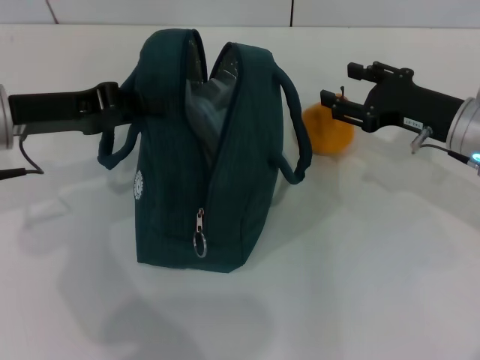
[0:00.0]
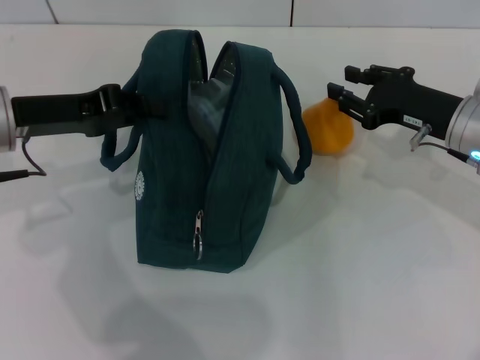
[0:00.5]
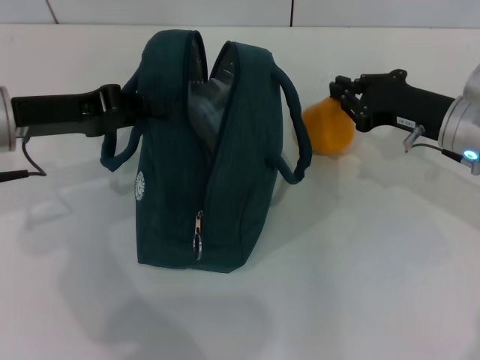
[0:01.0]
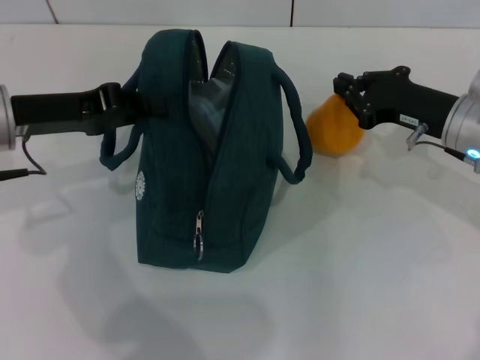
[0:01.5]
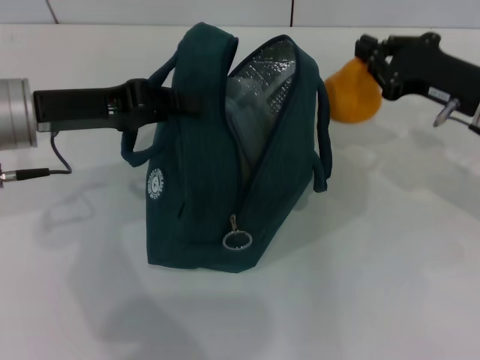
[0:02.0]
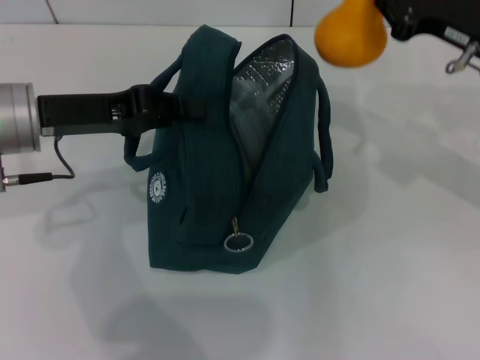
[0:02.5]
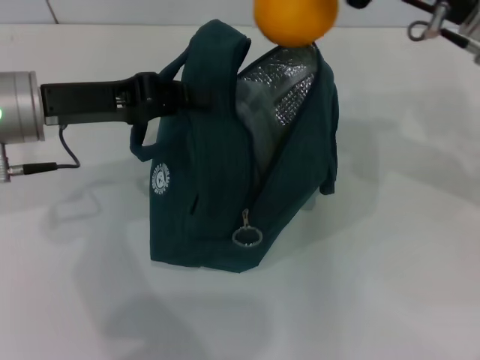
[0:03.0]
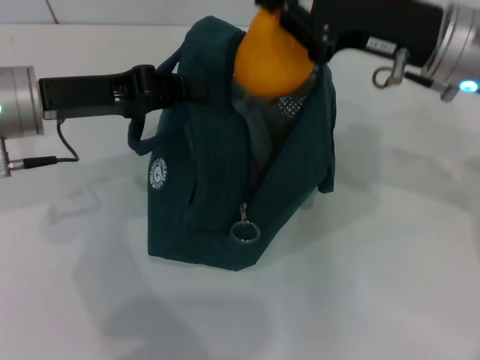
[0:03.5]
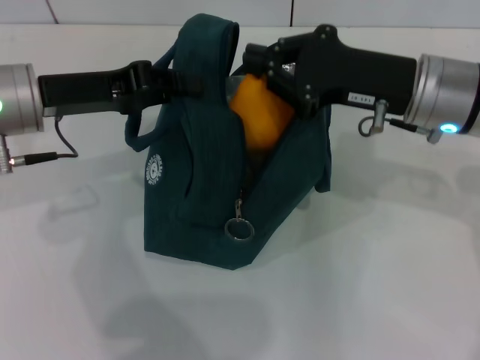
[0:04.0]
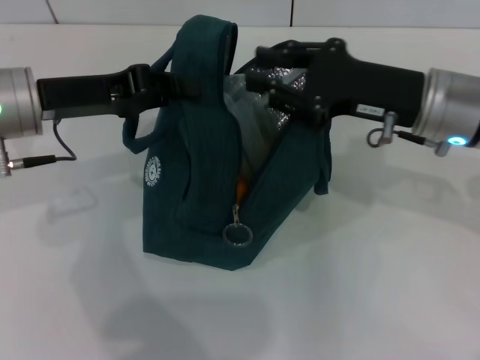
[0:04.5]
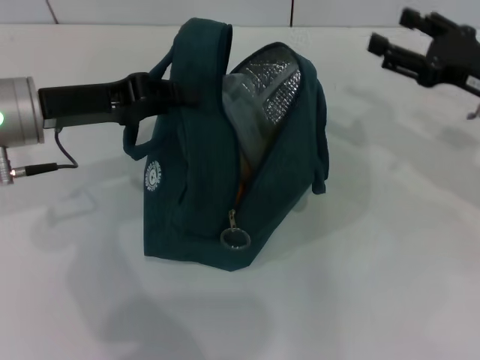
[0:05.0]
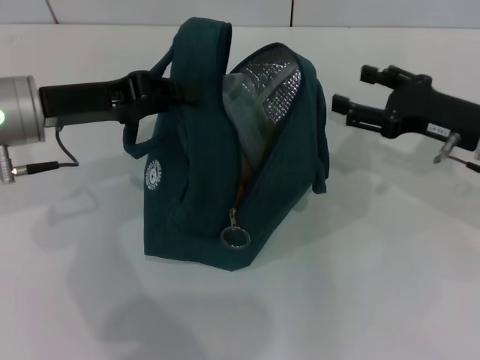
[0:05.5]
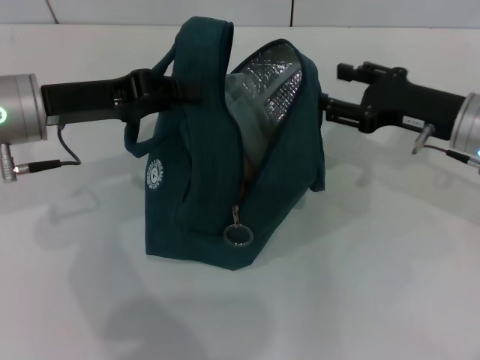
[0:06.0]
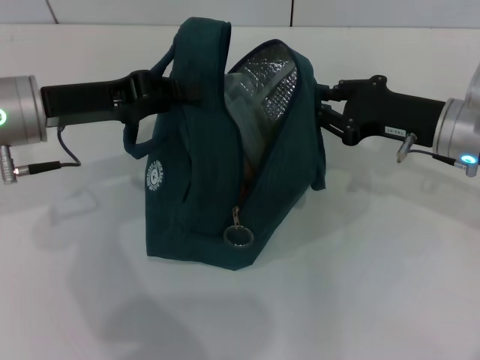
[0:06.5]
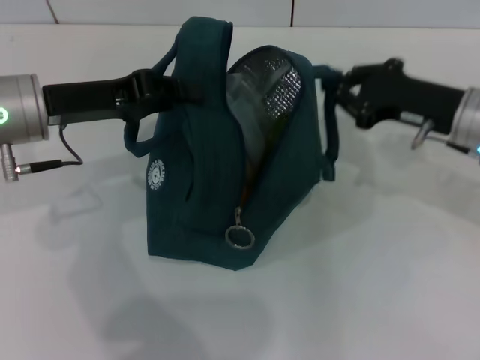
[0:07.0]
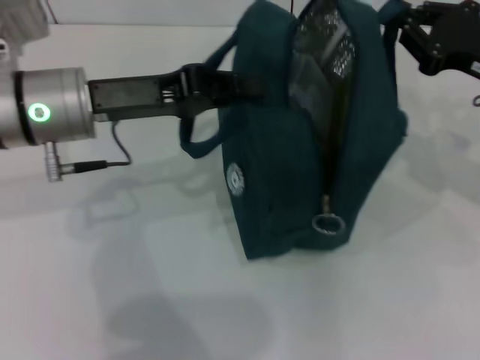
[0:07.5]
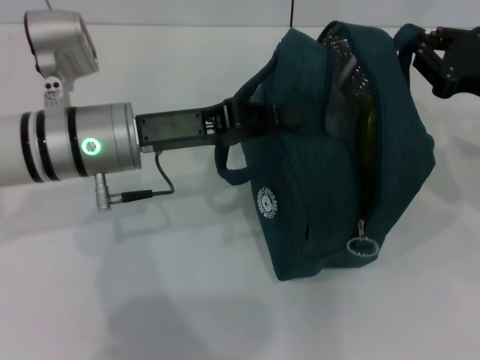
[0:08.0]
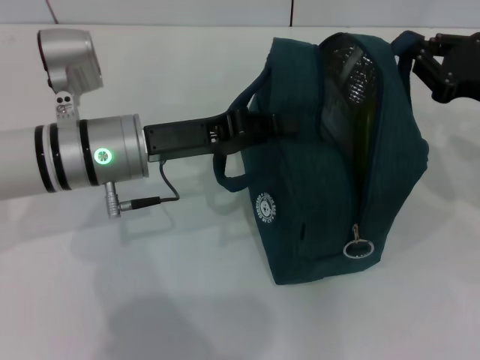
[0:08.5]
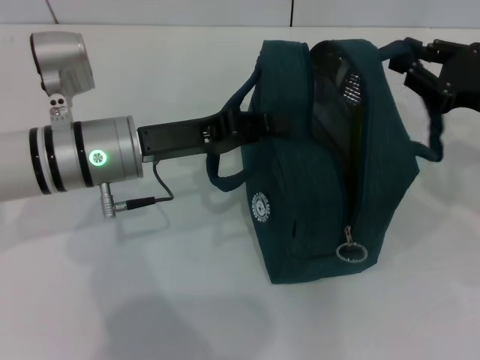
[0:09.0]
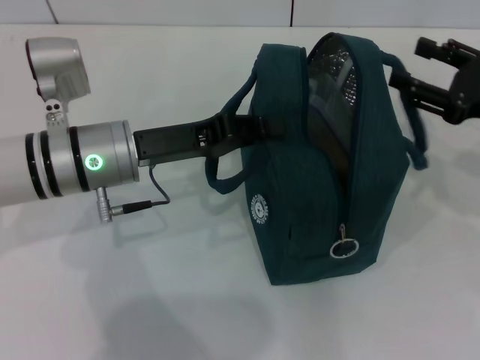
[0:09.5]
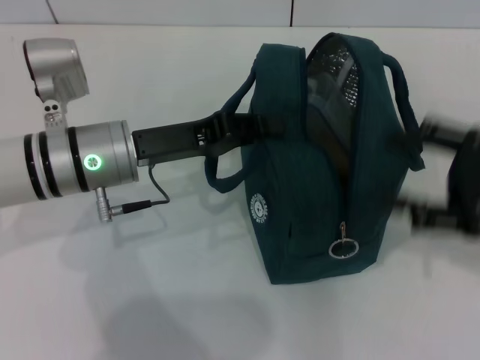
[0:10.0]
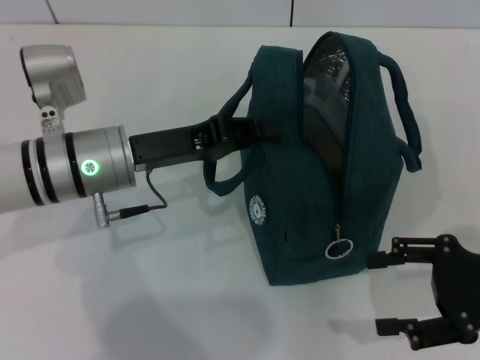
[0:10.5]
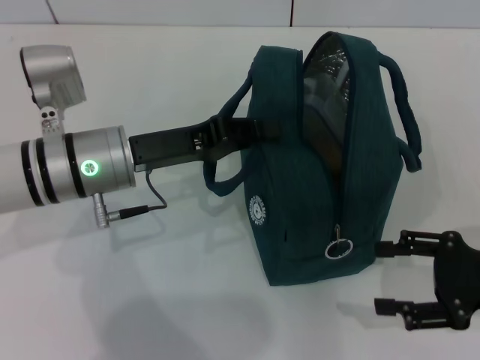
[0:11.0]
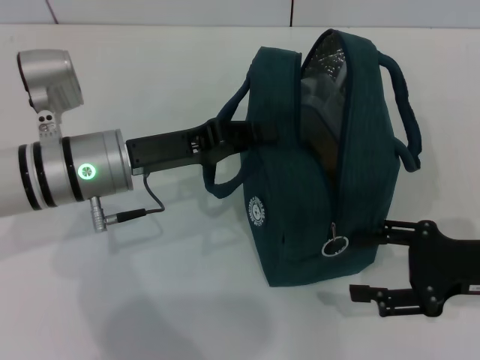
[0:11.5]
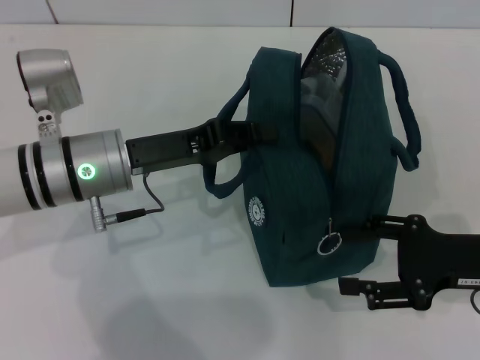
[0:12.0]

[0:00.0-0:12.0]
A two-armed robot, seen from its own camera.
Step, 0:01.5 to 0:04.5: Secure the lunch bag with your left hand.
Step, 0:05.0 to 0:09.0: Hold the lunch bag with your right hand.
0:00.0 to 0:02.0: The right gripper closes its fingers.
0:02.0 to 0:04.0: The right gripper travels to the left by about 10 cm.
0:04.0 to 0:06.0: The right gripper shifts approximately 10 cm to the right and downward, and opens its fingers.
0:06.0 to 0:08.0: The two grippers go approximately 5 cm to the right. The right gripper closes its fingers.
0:08.0 to 0:10.0: The right gripper moves backward, some 5 cm, and opens.
0:10.0 to 0:12.0: The right gripper moves downward, some 5 cm.

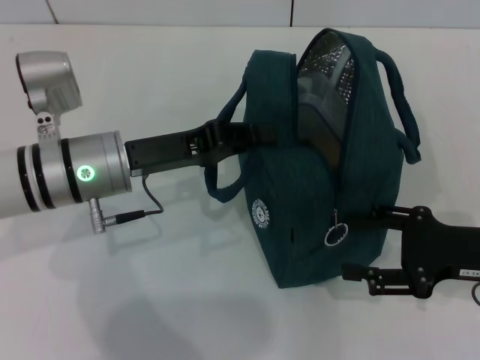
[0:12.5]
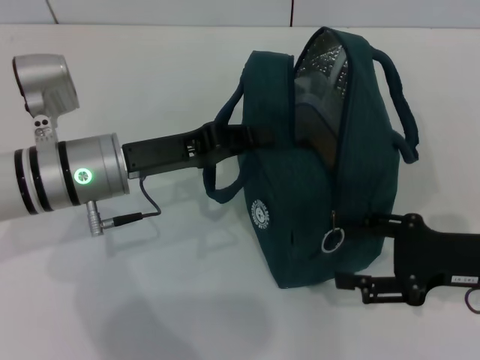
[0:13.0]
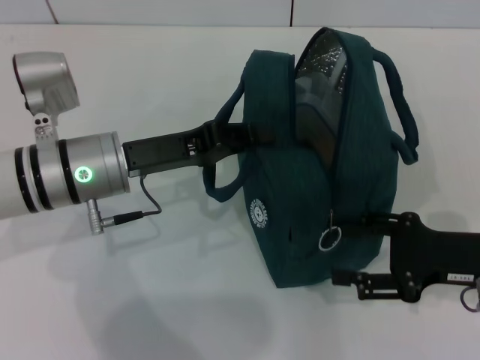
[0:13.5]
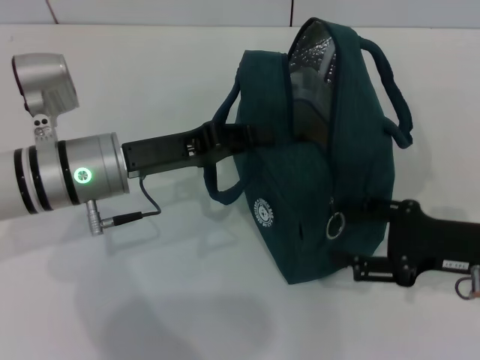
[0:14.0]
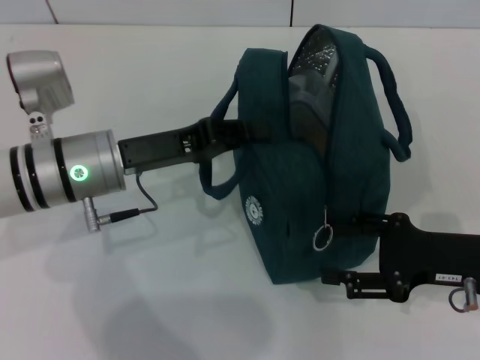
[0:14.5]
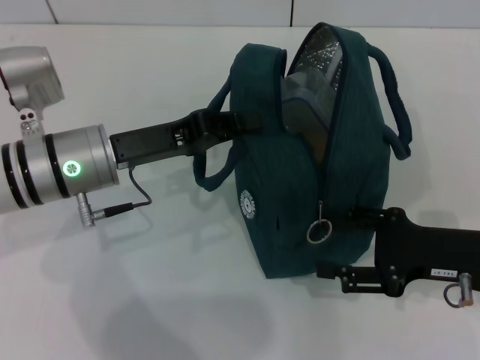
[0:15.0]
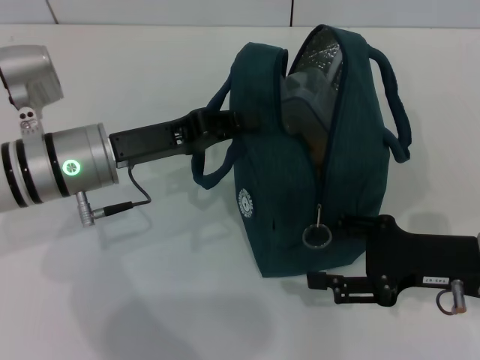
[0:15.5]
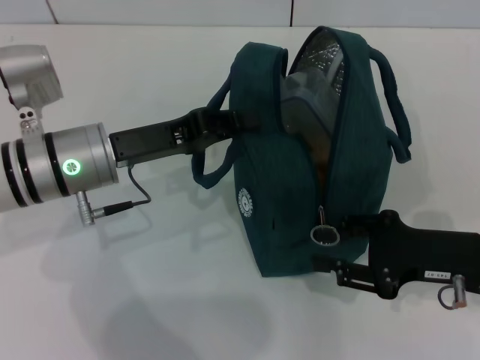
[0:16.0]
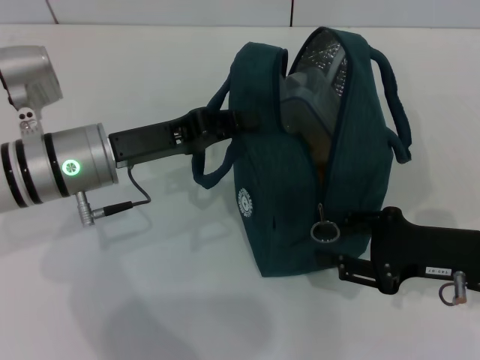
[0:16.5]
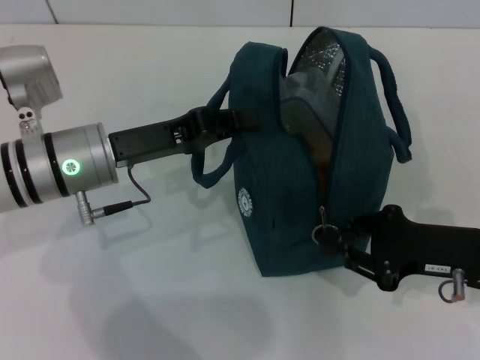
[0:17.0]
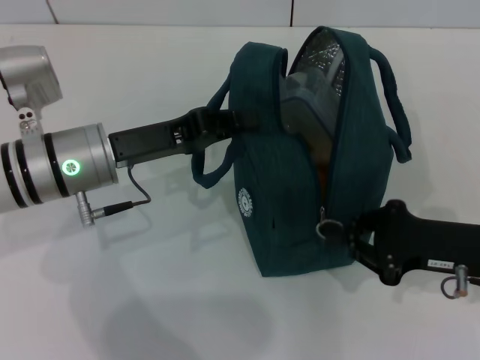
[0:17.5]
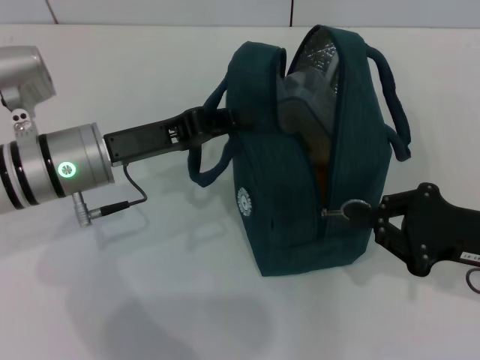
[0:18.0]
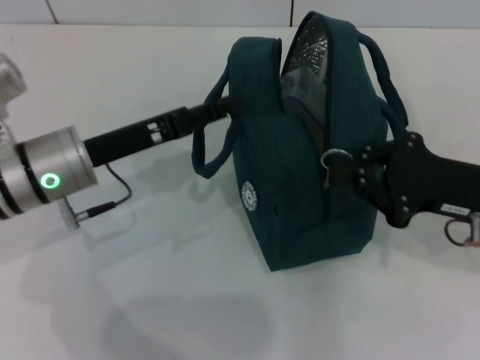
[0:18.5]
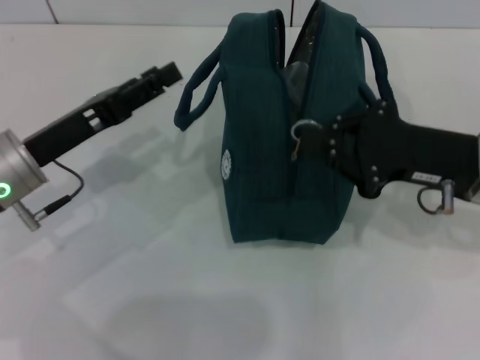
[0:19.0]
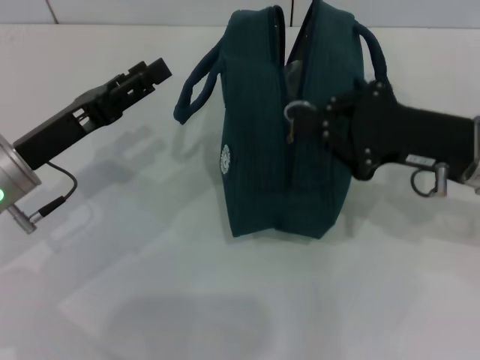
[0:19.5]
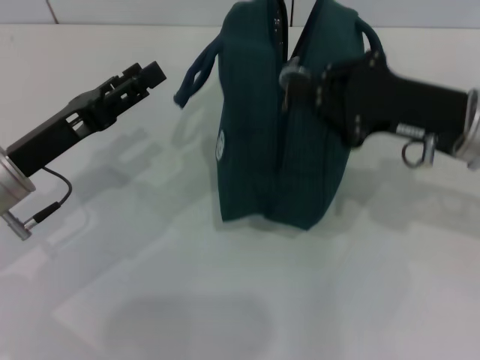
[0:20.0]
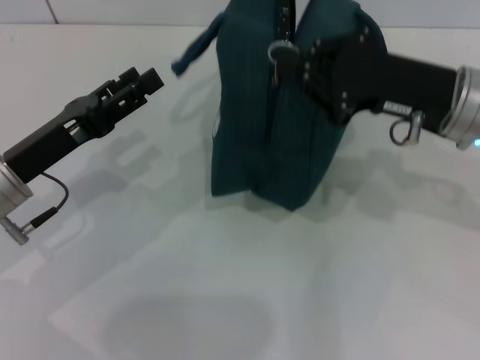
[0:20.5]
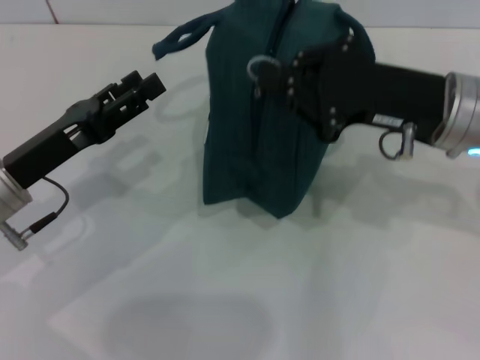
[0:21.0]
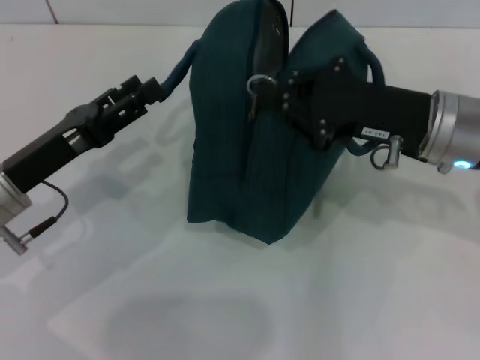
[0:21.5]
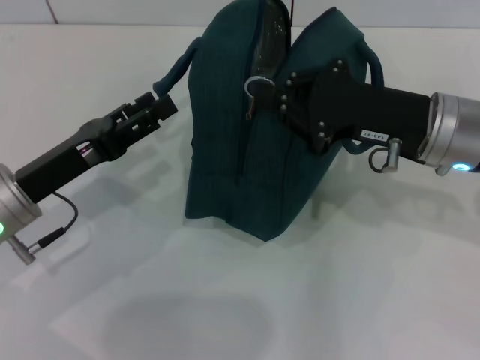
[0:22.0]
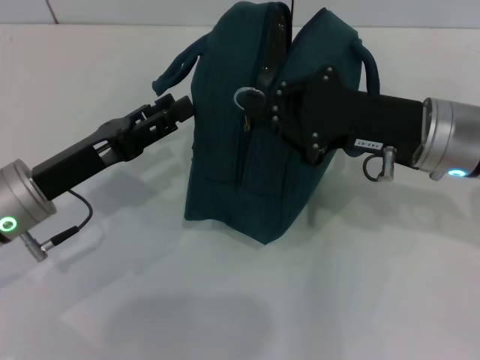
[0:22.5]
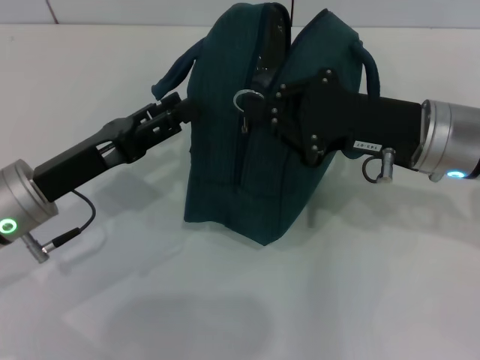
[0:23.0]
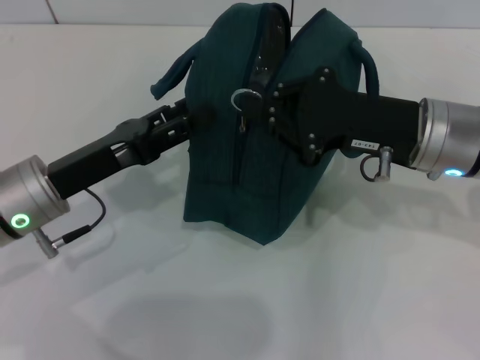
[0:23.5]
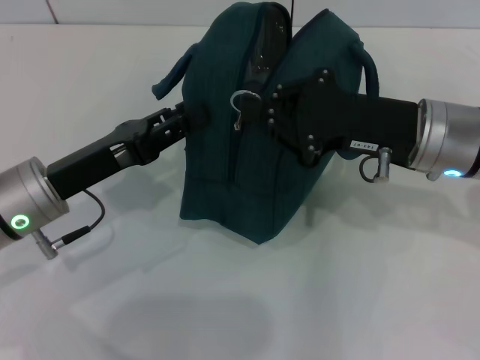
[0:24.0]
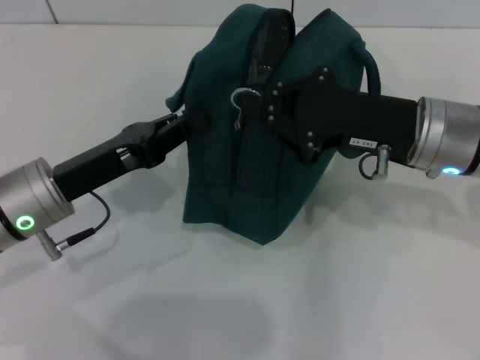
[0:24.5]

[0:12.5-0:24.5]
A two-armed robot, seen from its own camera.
Step, 0:12.5 to 0:18.5: Hold the lunch bag with your left hand.
0:12.5 to 0:14.5: The grippers make only small movements.
0:14.5 to 0:16.5: The right gripper closes.
0:16.5 to 0:18.5: The right gripper closes up.
0:18.5 to 0:20.5: The left gripper travels to the left by about 5 cm, and opens its fingers. Meanwhile the right gripper heads forward, to the left and upward, covering roughly 10 cm.
0:22.5 to 0:24.5: The left gripper closes its fingers.

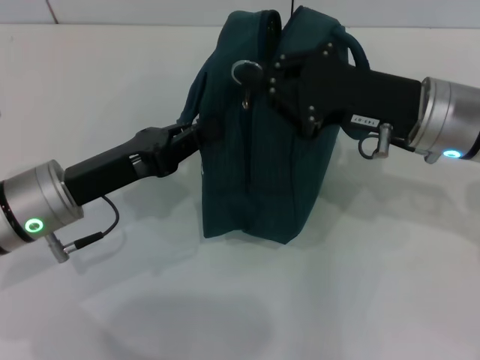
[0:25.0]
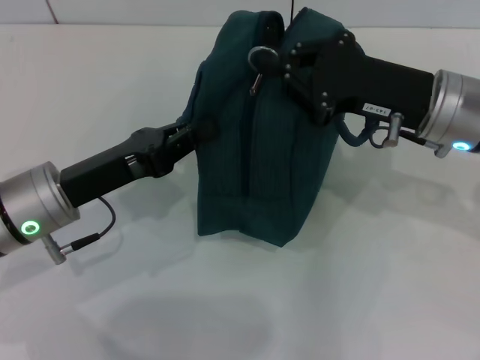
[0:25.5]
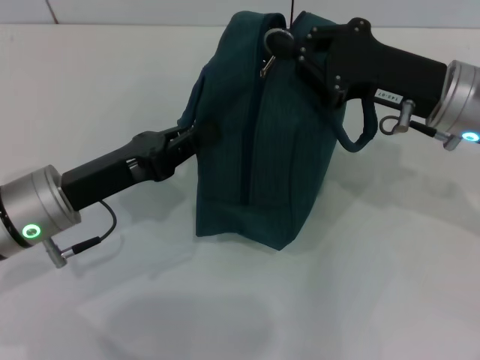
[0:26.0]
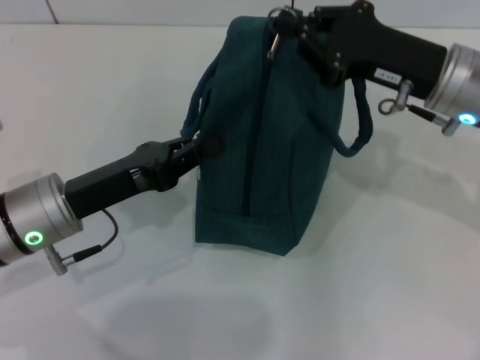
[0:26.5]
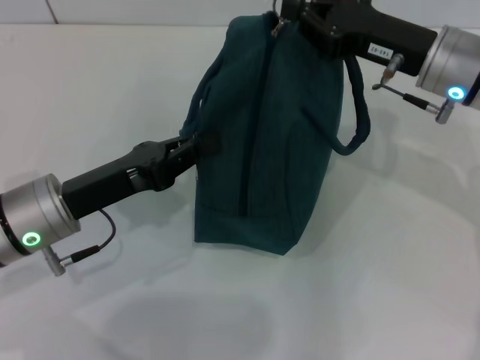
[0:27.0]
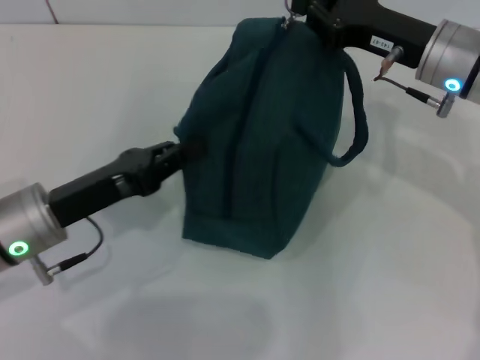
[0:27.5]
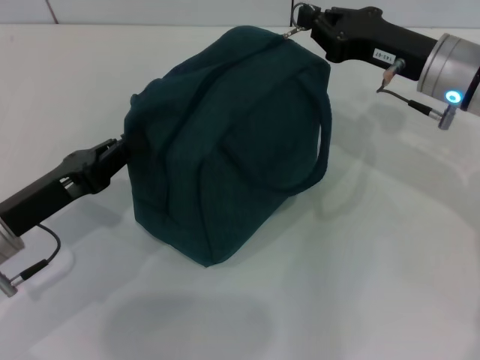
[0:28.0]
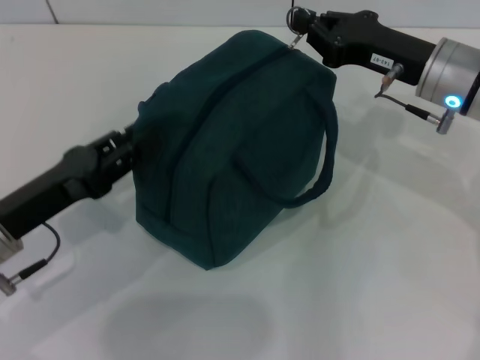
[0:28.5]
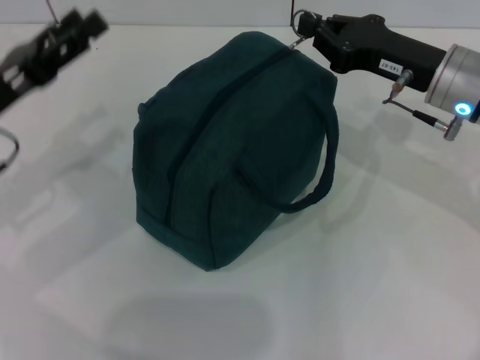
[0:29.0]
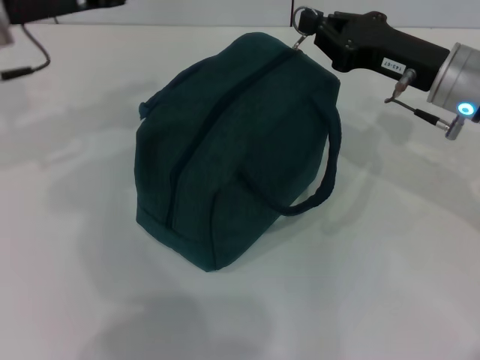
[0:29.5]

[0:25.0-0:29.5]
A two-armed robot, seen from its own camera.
0:25.0 to 0:27.0: The right gripper changes place by about 5 cm.
0:27.0 to 0:29.5: The left gripper goes about 20 cm upward and forward, and opens.
